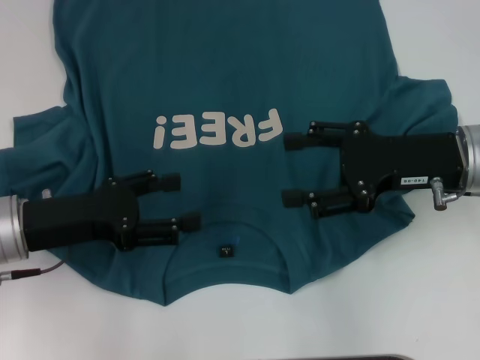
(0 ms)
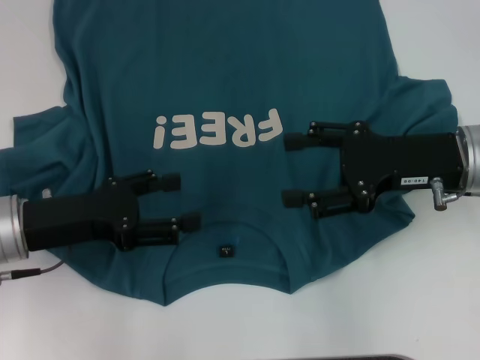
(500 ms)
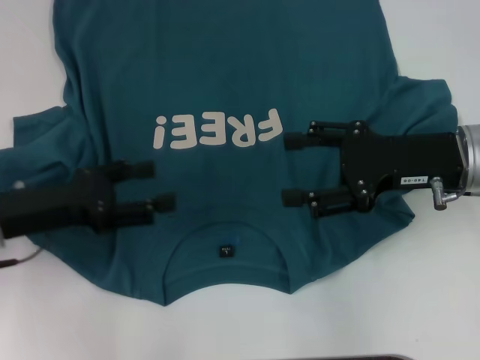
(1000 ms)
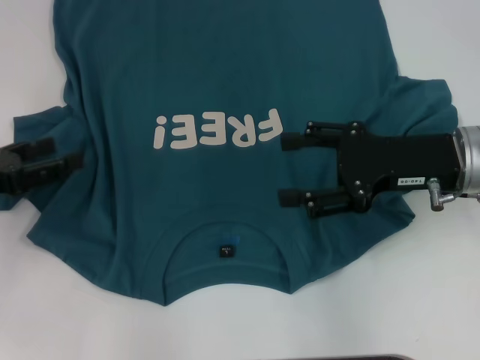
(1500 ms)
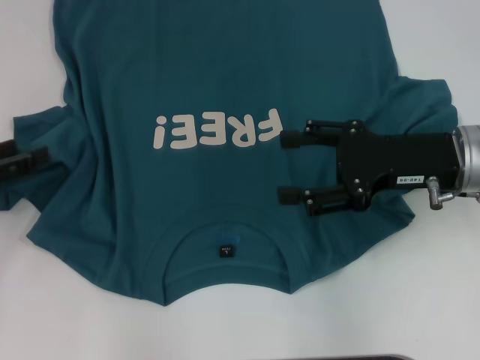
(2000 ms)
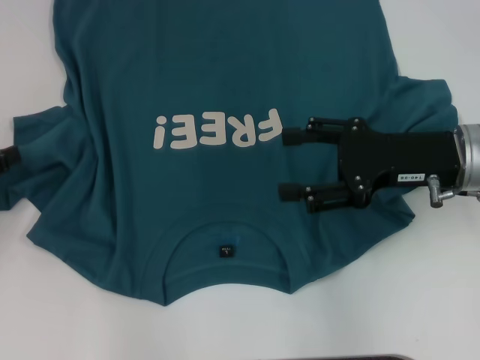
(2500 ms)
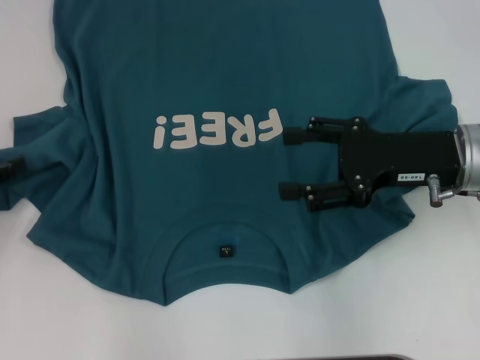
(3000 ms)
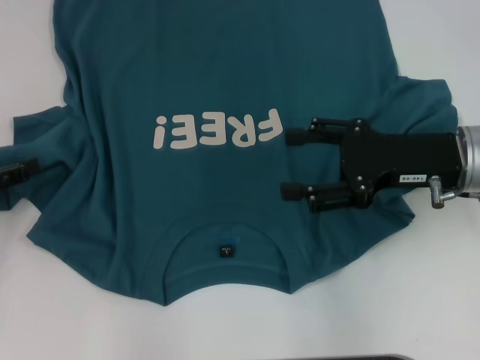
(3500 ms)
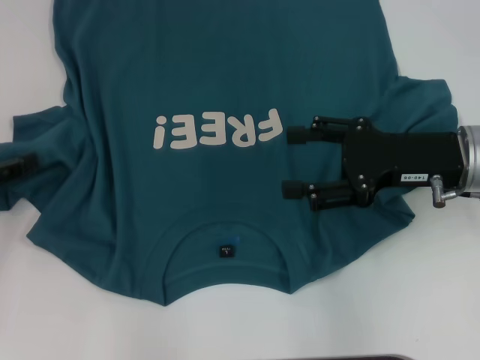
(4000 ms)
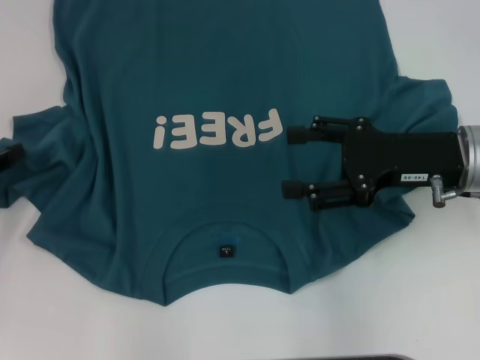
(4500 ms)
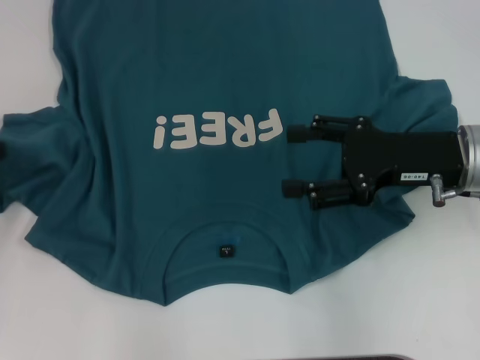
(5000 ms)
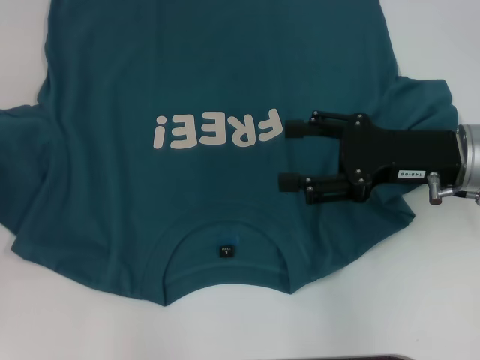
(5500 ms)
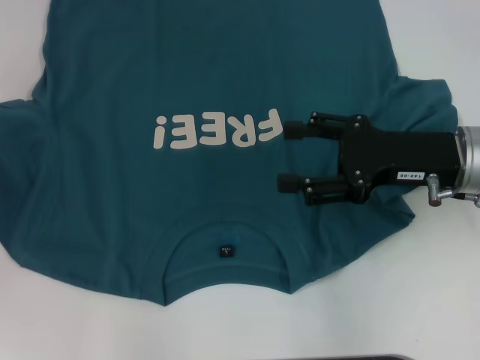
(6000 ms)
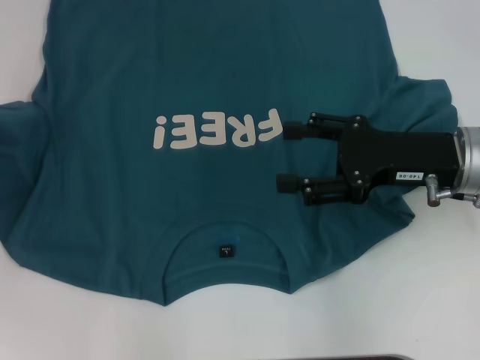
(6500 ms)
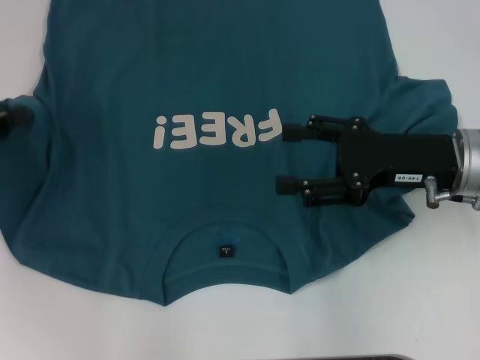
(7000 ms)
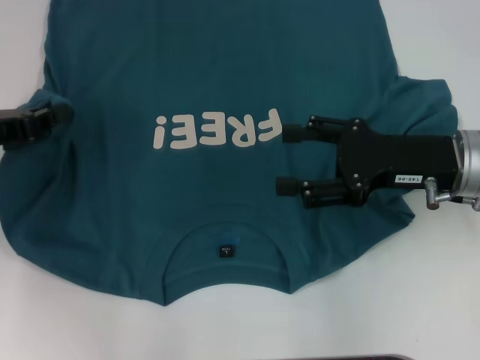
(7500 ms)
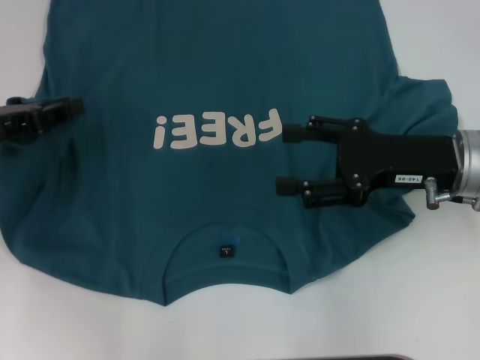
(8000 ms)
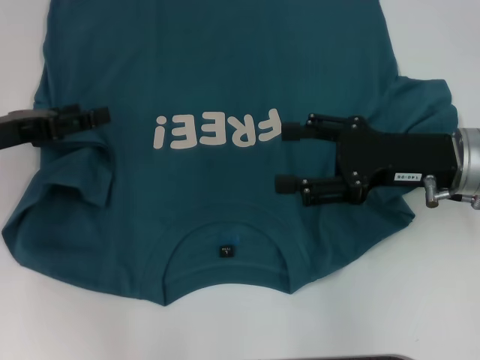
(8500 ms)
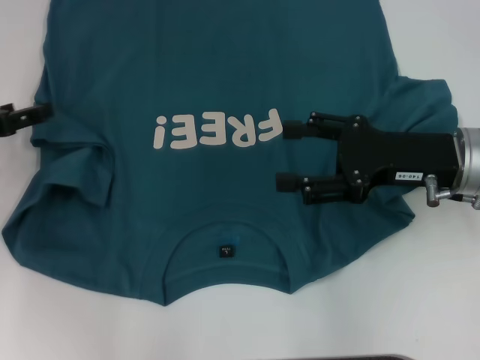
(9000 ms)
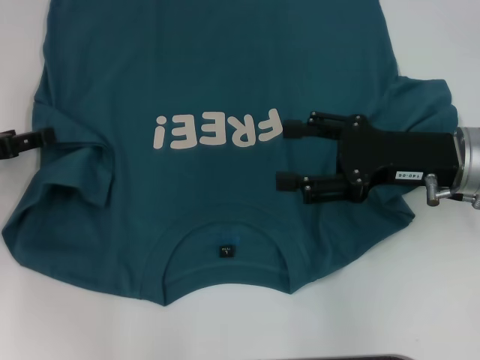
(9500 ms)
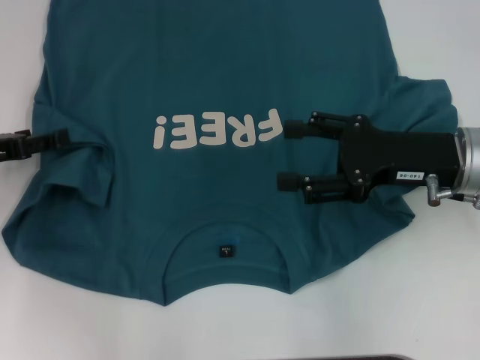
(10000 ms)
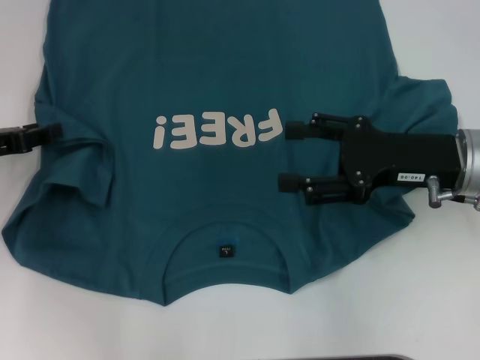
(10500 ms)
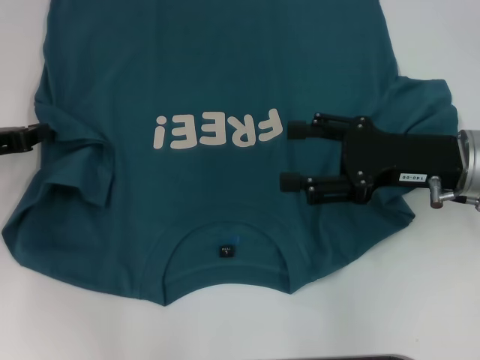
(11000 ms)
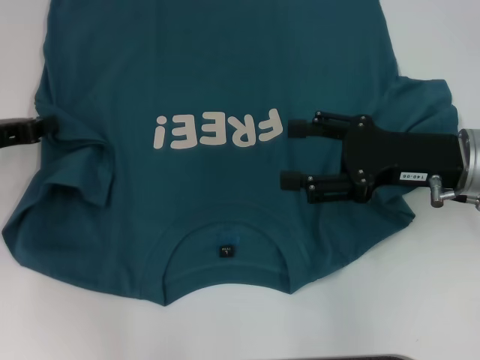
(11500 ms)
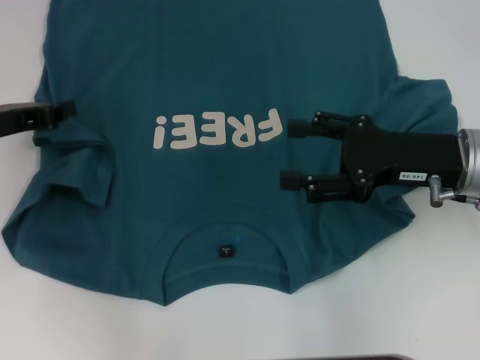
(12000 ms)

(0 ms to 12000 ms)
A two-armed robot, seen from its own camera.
0 ms - 2000 ms: The left gripper goes approximately 10 cm to the left.
2000 ms - 4000 ms: The grippers stay close to where they were, moving slightly.
4000 ms - 6000 ms: The left gripper moves roughly 5 cm, and closes up.
6000 ms - 8000 ms: The left gripper moves to the right, roughly 10 cm.
8000 ms - 10000 ms: The left gripper opens its fingers.
10000 ms - 12000 ms: The left gripper closes up.

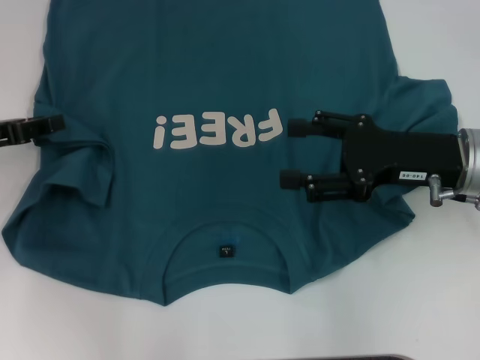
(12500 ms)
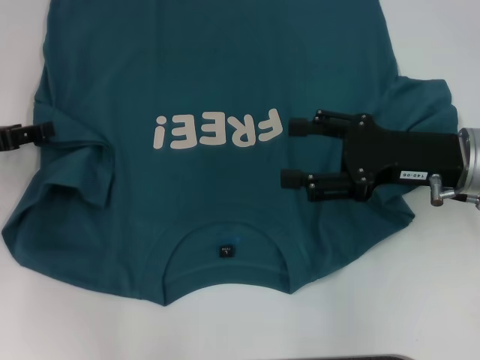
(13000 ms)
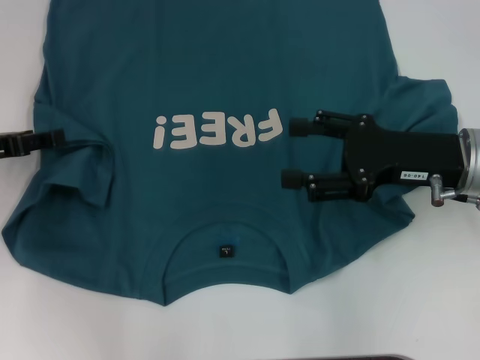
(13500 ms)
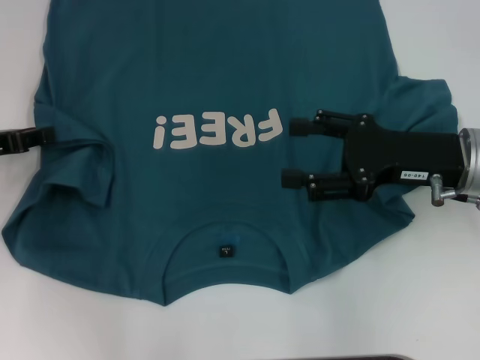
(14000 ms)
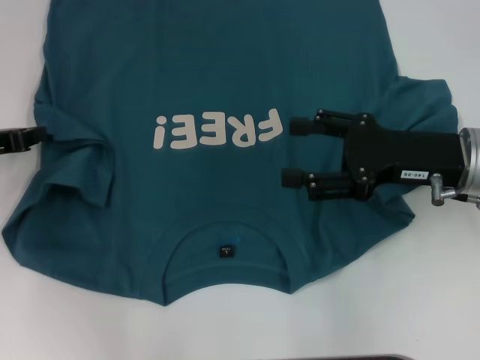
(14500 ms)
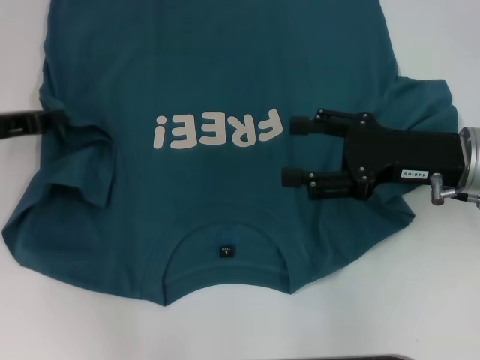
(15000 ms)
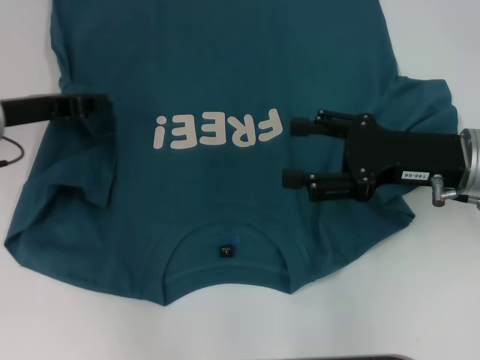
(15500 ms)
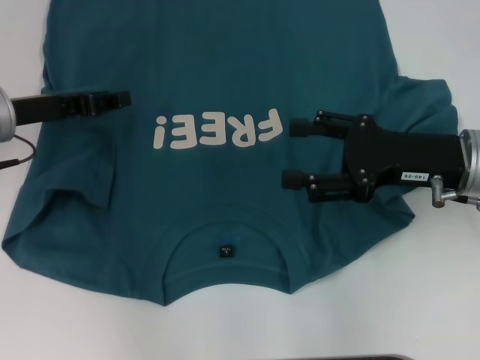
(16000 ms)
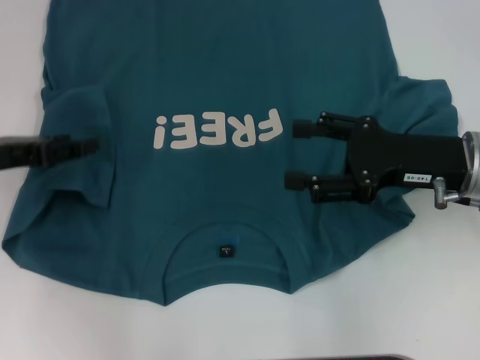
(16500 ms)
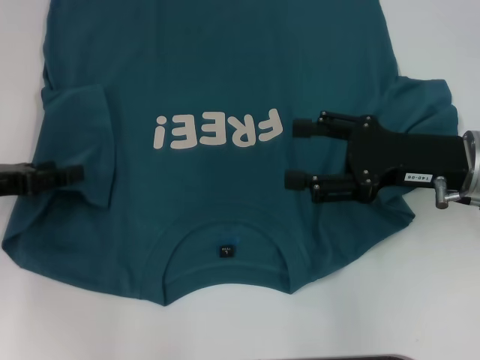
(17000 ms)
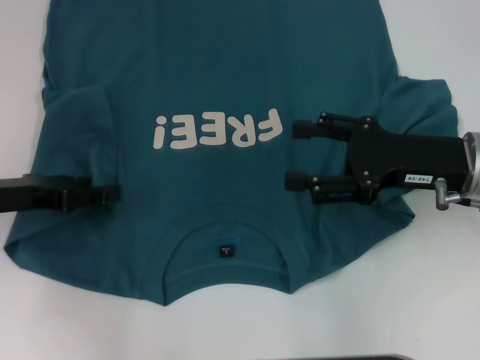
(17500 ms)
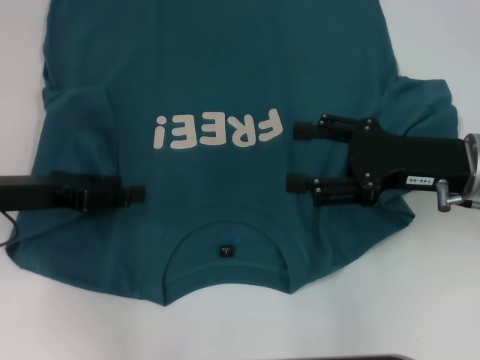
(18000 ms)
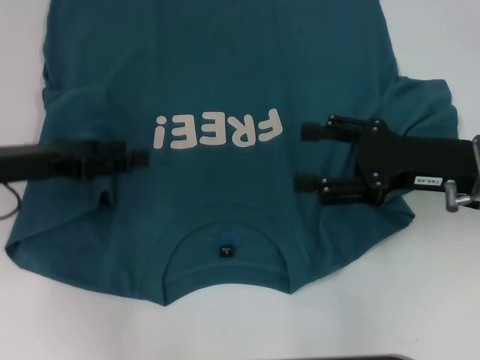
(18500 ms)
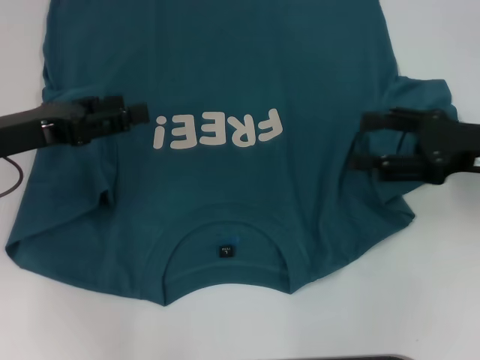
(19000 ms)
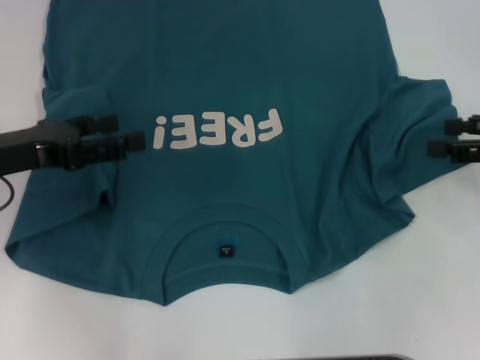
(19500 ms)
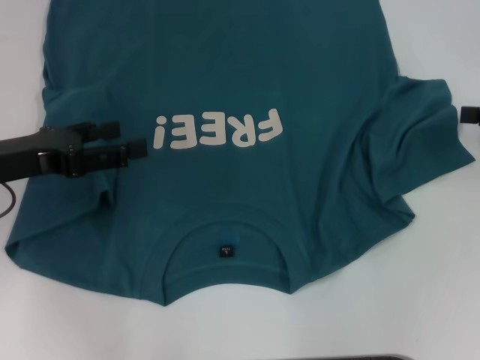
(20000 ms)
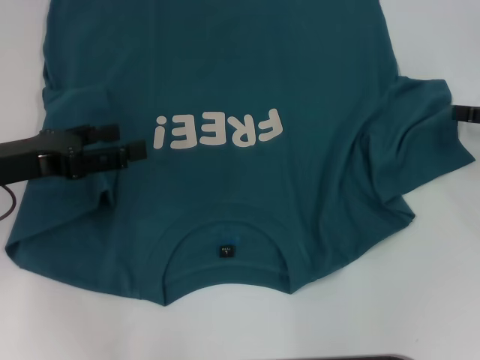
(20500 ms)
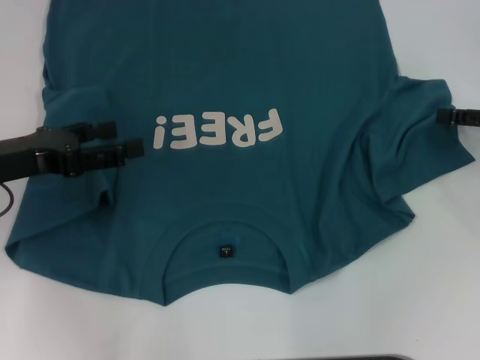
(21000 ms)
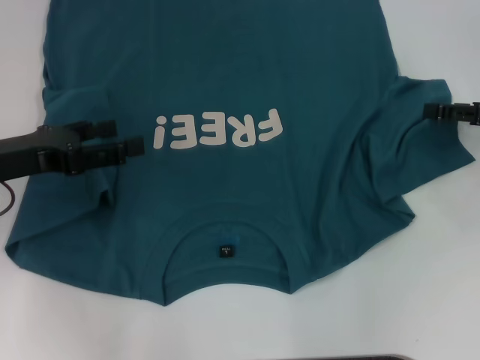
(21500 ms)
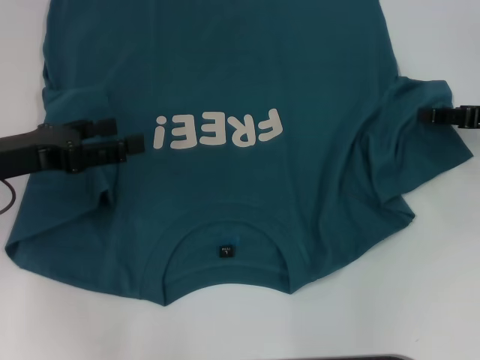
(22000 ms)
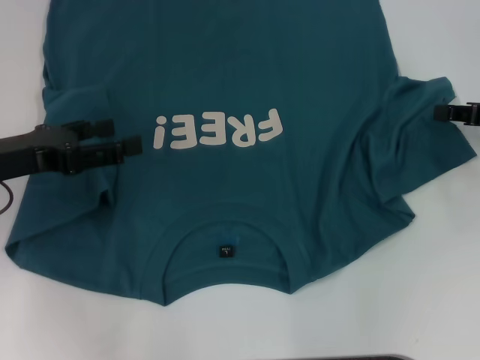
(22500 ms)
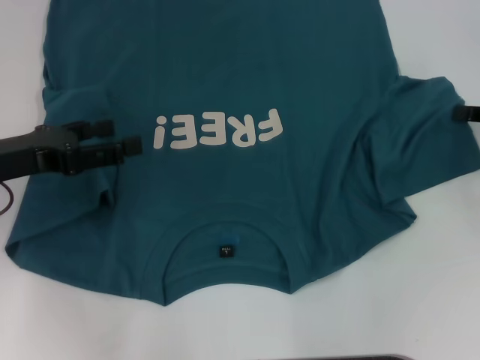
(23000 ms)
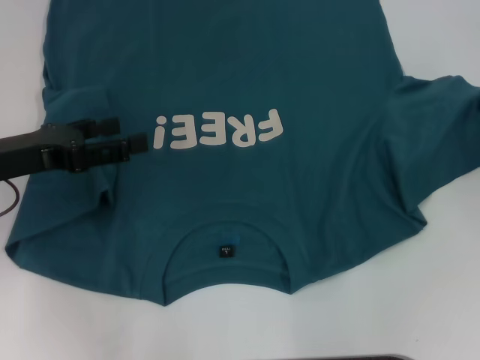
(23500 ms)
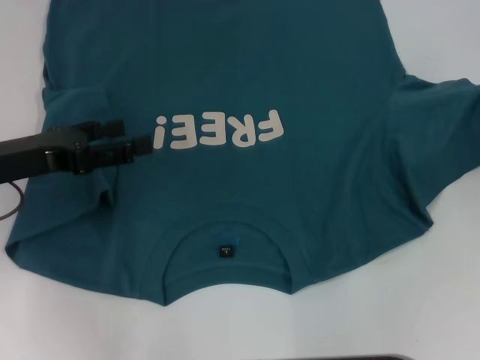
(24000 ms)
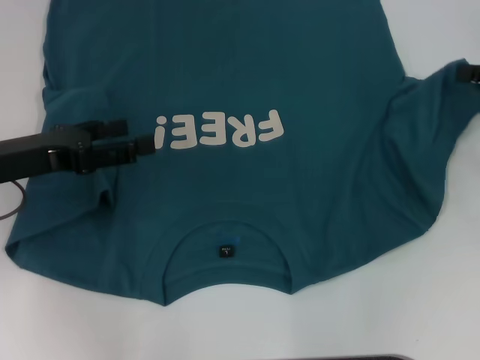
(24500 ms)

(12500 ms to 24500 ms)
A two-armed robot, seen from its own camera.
Step, 12500 ms - 16000 ms: Fold the bottom left sleeve with your left hand.
12500 ms - 14500 ms: The left gripper opens, then closes again.
14500 ms - 16500 ms: The left gripper opens.
16500 ms - 18500 ms: The grippers move only a little.
18500 ms - 20500 ms: The right gripper goes about 15 cm to the right.
20500 ms - 22500 ms: The right gripper closes.
22500 ms - 24500 ms: There are only small adjustments of the grippers.

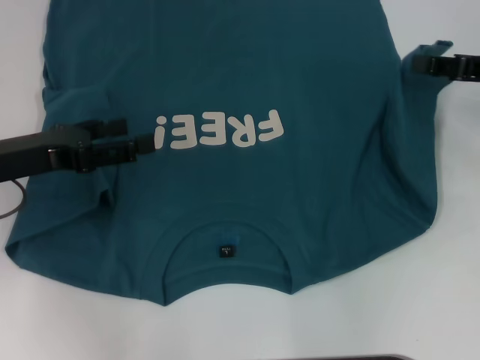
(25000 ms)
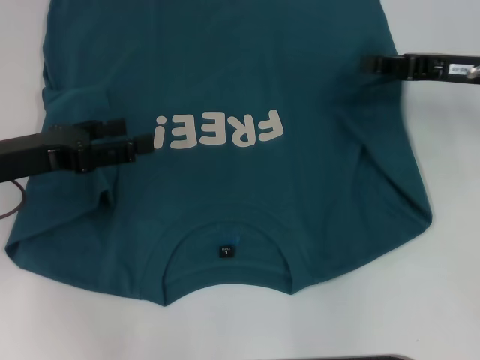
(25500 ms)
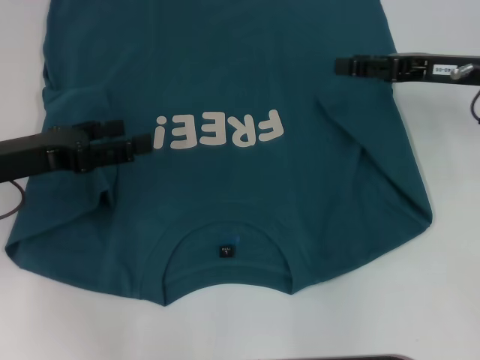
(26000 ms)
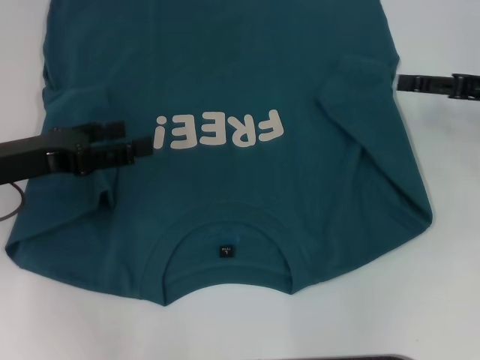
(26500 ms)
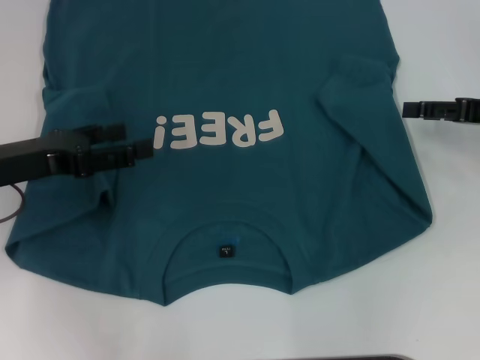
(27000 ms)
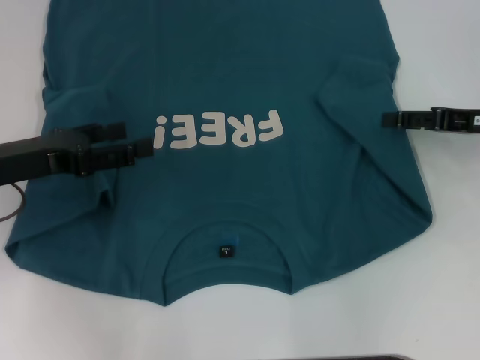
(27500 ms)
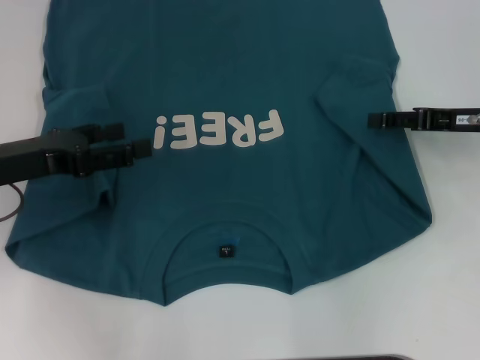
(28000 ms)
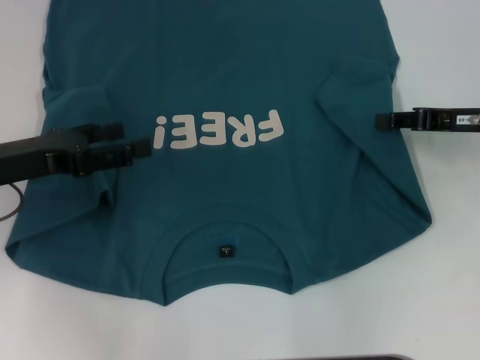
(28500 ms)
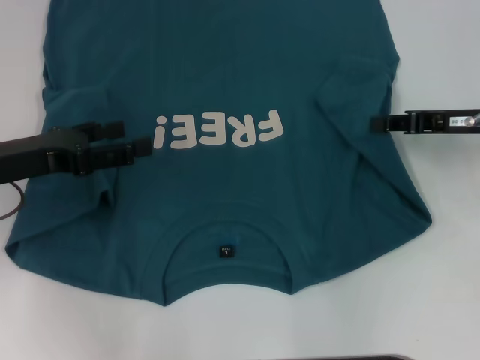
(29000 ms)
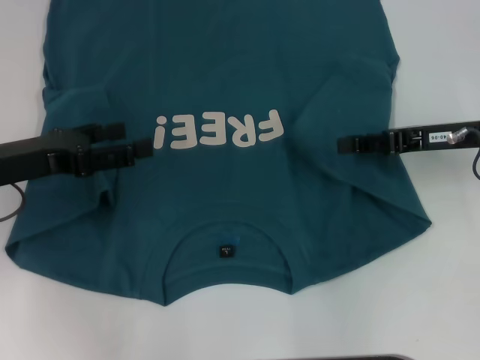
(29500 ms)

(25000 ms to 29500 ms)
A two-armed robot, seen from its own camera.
25000 ms - 27000 ms: The right gripper opens up.
27000 ms - 29500 ms: The right gripper heads to the left, covering roughly 5 cm, and closes.
